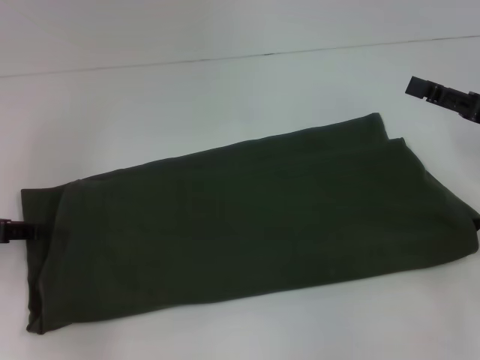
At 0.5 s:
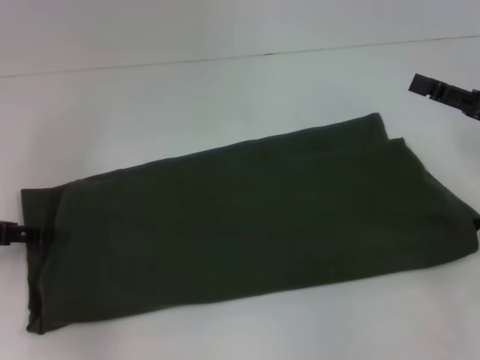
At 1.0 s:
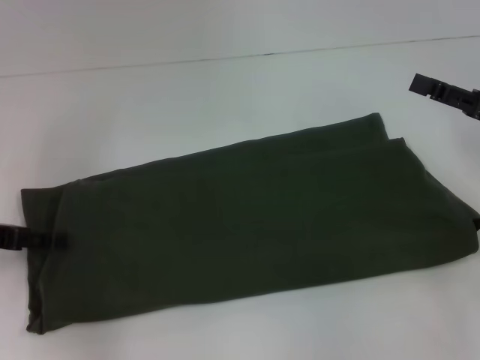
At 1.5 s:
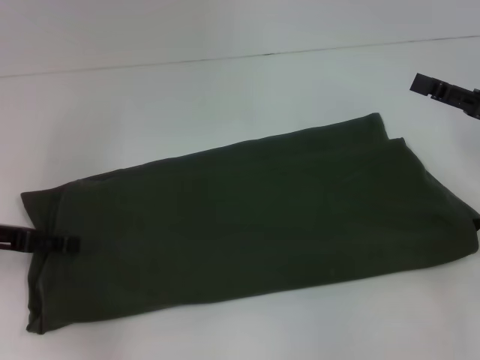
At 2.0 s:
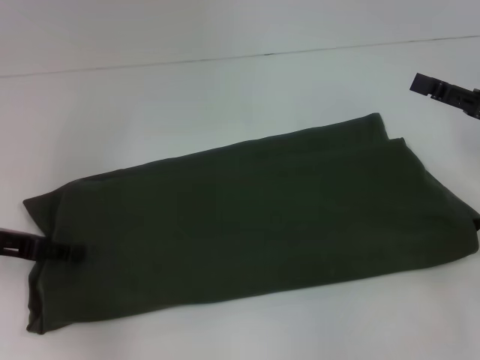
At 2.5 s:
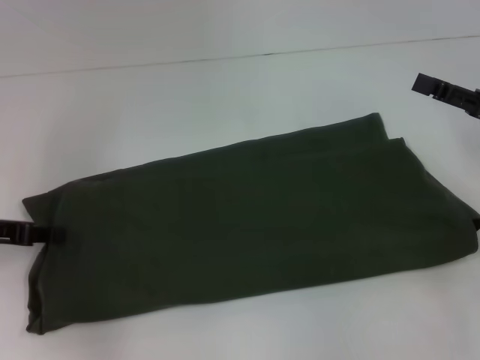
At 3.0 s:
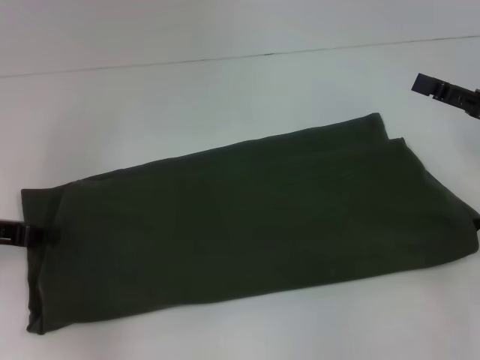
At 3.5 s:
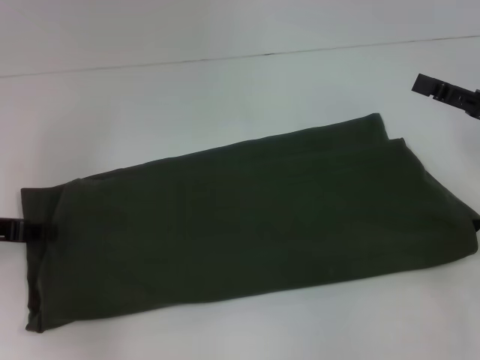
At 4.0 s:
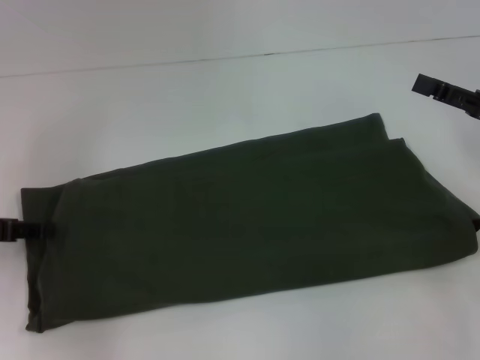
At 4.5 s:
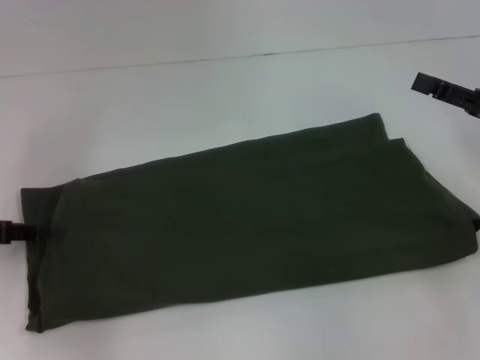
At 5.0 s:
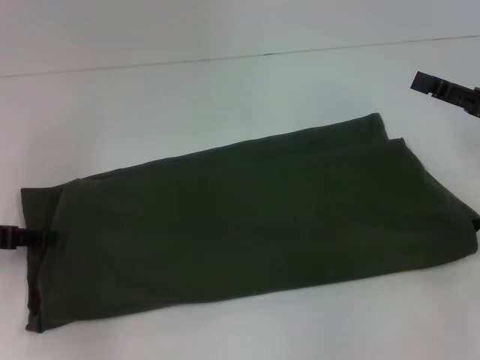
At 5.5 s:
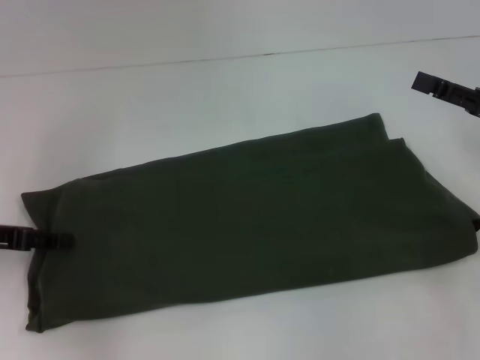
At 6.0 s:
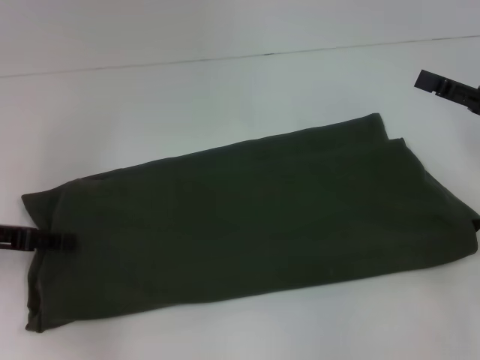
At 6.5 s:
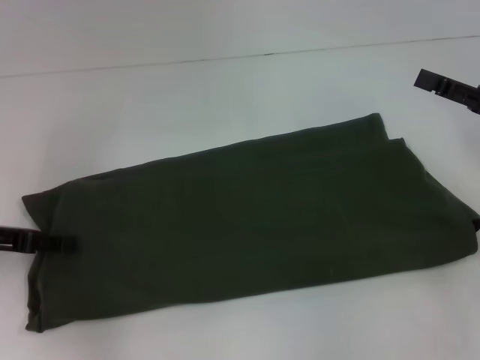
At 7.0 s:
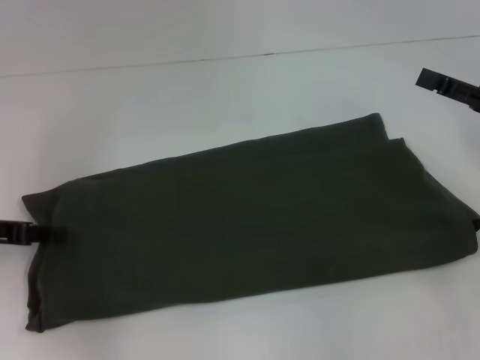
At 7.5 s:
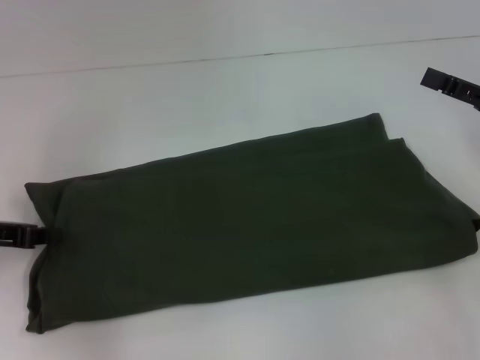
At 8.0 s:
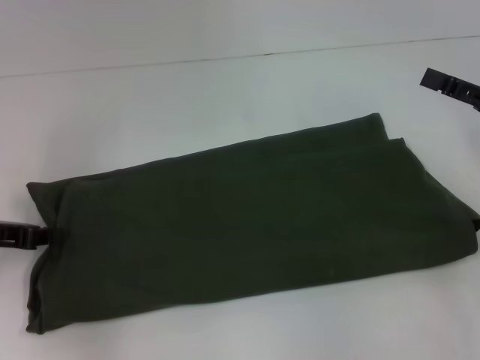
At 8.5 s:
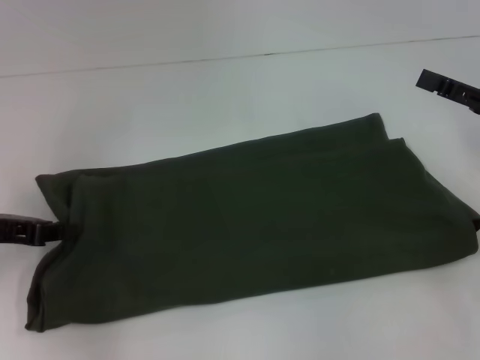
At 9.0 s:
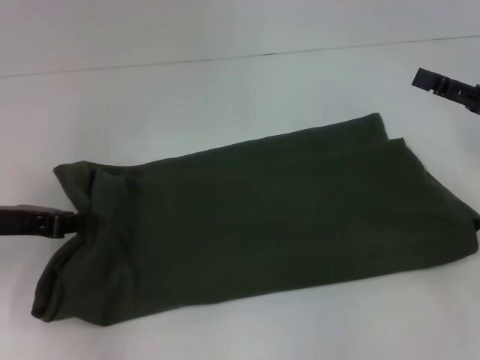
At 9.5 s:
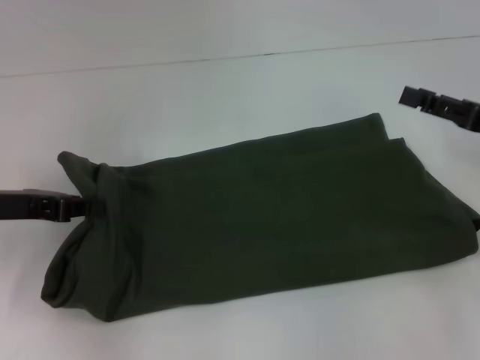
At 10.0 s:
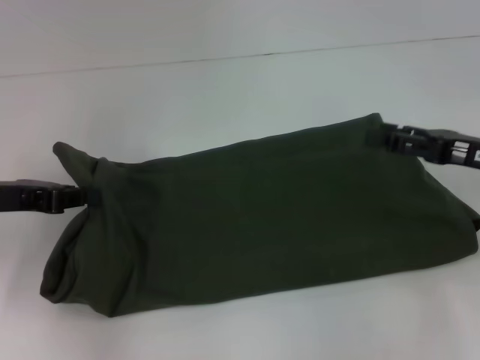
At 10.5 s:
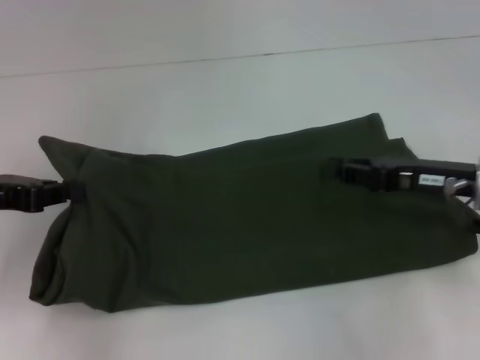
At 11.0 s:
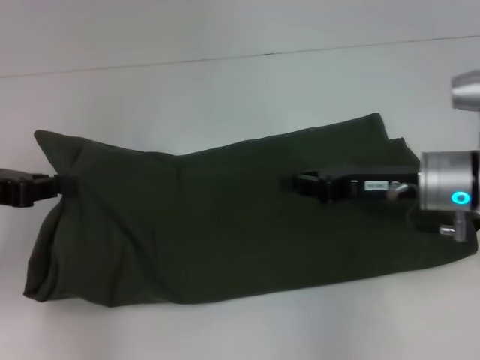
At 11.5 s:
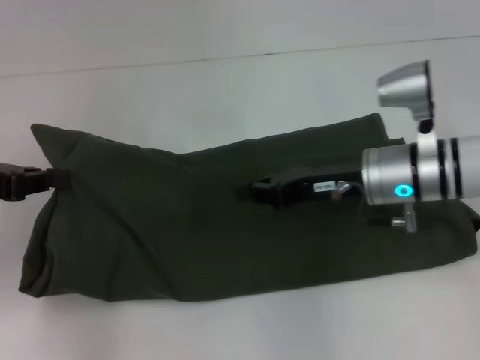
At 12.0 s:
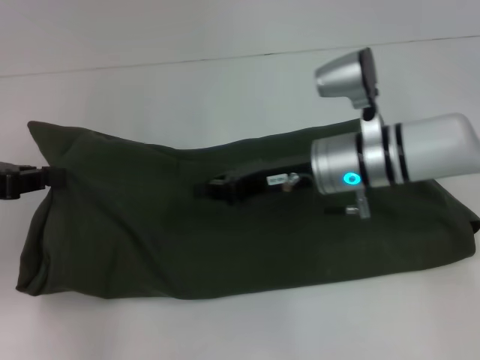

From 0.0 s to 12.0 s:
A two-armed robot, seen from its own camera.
From 0.0 s to 2.0 s: The left gripper opens.
From 2.0 s to 4.0 s: The left gripper closes its fingers.
From 4.0 s to 6.0 s: The grippers stay close to where they were, moving slightly.
From 6.0 s to 8.0 s: The left gripper closes.
From 8.0 s to 10.0 s: There are only small adjustments of the grippers.
From 10.0 s to 12.0 s: The right gripper goes about 20 cm to the left, and closes up.

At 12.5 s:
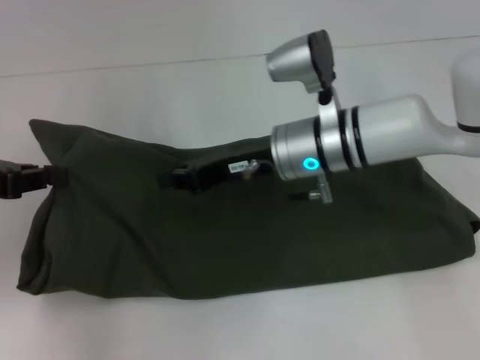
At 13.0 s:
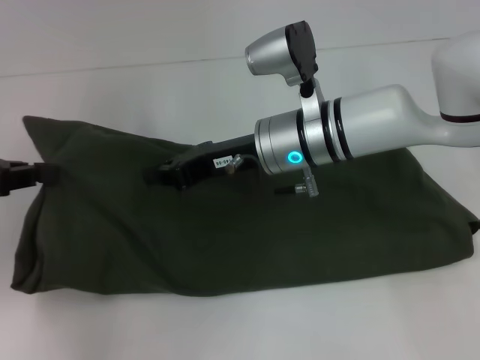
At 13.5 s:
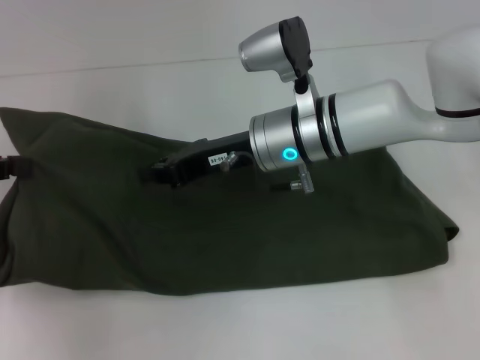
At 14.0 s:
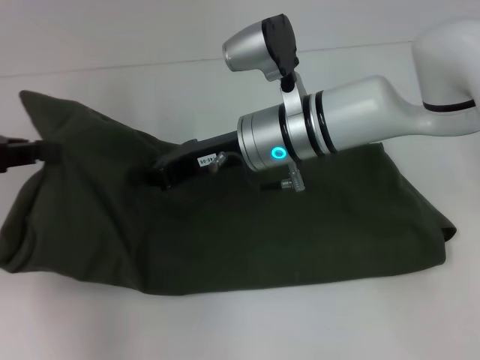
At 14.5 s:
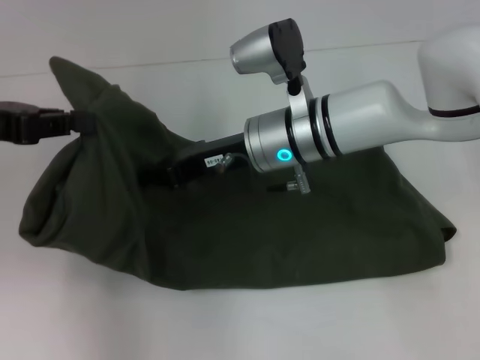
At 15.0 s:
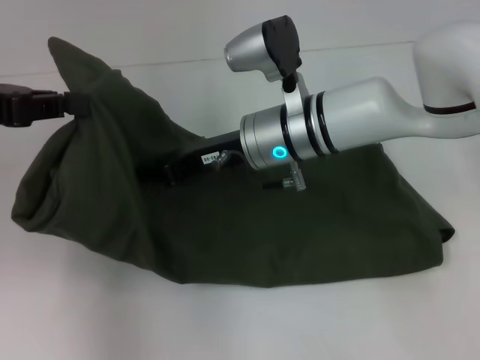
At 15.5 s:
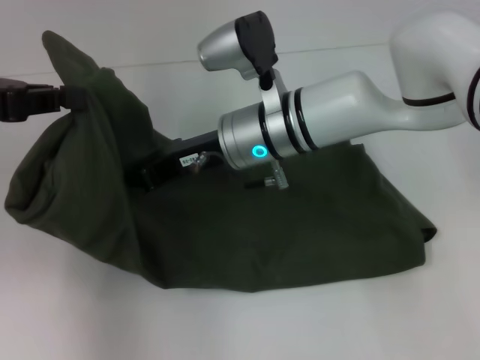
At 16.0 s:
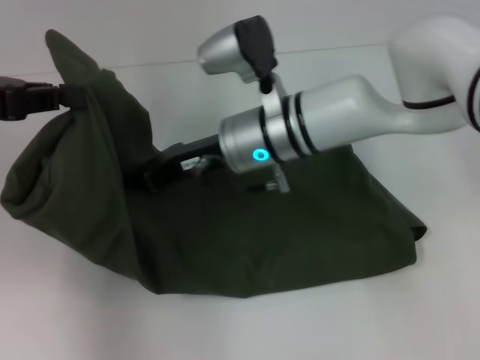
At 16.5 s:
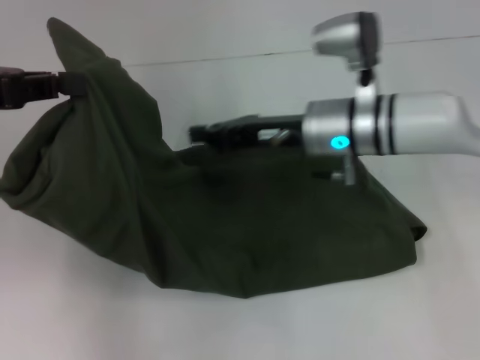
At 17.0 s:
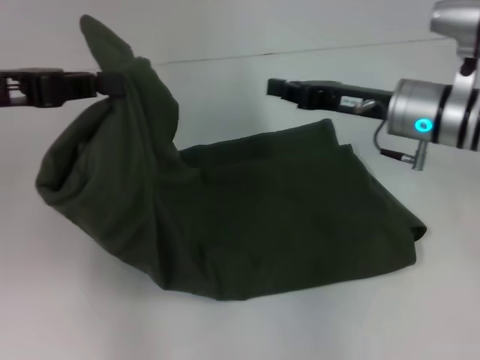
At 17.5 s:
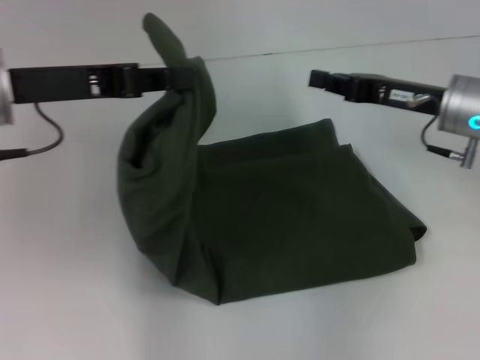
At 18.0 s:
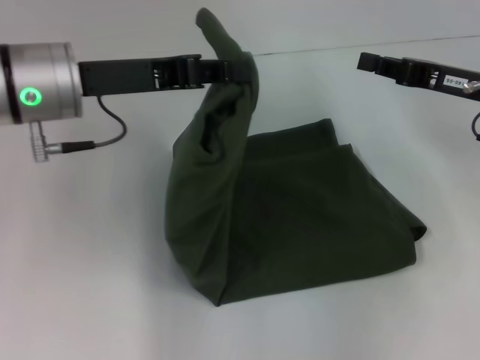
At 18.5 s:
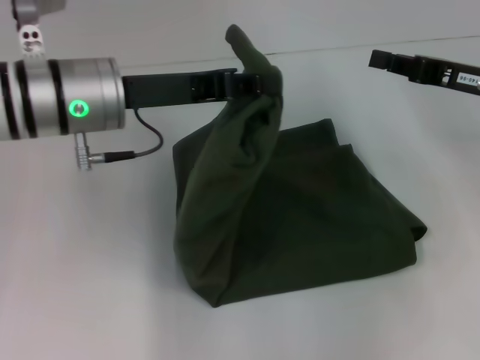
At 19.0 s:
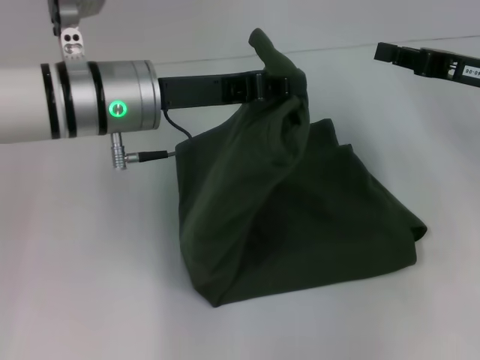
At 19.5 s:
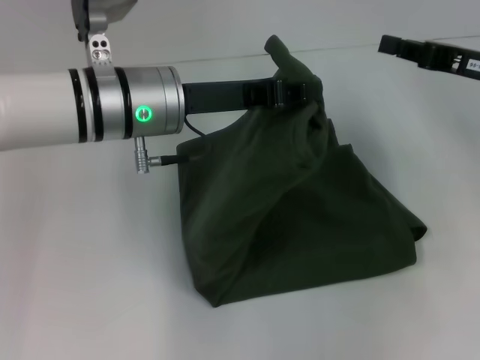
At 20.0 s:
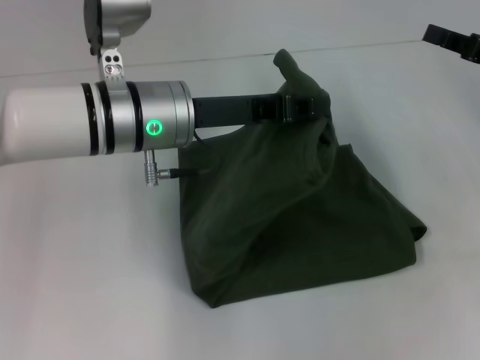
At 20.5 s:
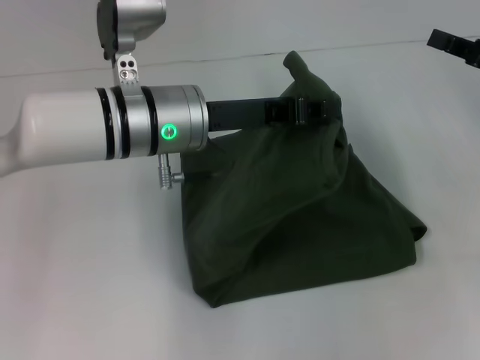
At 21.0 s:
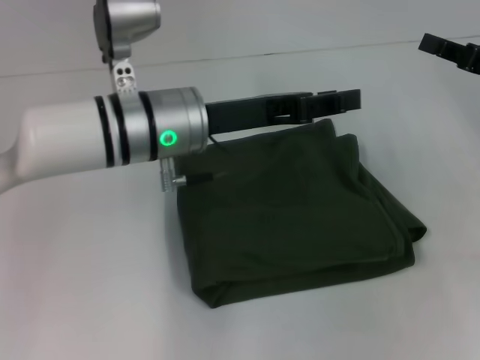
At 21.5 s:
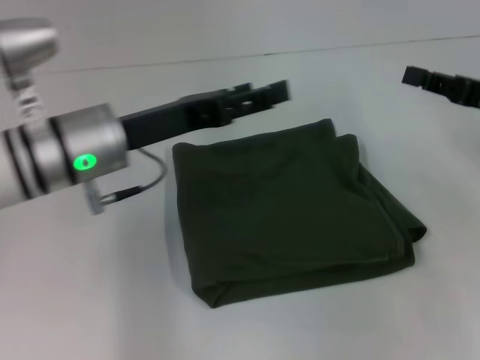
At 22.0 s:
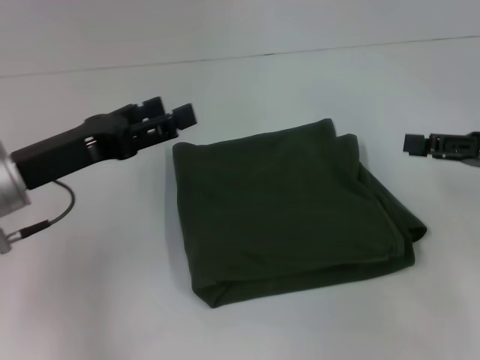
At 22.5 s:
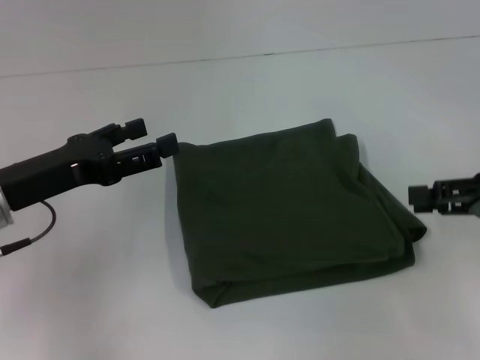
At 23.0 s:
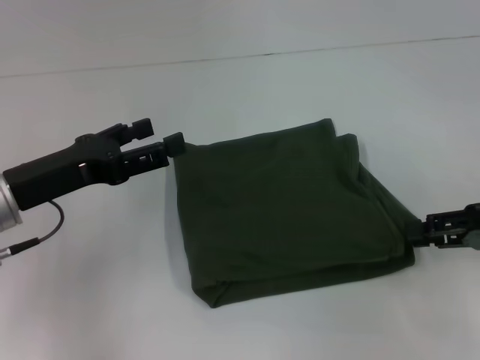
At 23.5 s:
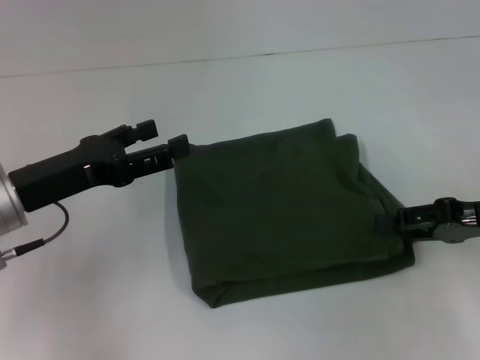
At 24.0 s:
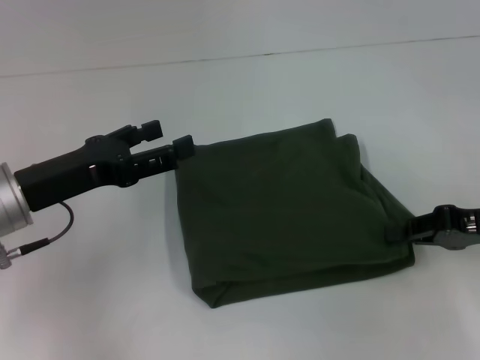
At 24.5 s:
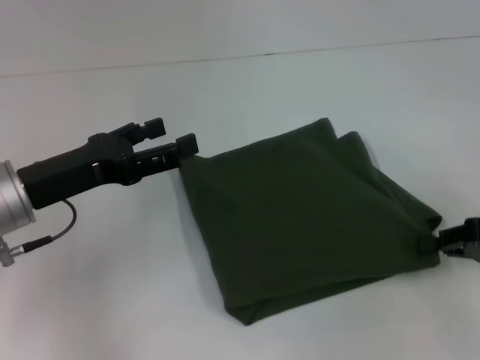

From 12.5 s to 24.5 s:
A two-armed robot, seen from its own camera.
Step, from 12.5 s to 20.5 s: Fold the clothes with your left hand.
From 12.5 s to 14.5 s: The left gripper ends up roughly 5 cm from where it was.
From 14.5 s to 16.5 s: The right gripper goes about 5 cm to the right.
From 16.5 s to 18.5 s: The two grippers go some 15 cm to the right.
From 18.5 s to 20.5 s: The left gripper is displaced to the right by about 5 cm.
From 20.5 s to 22.5 s: The right gripper moves backward, roughly 5 cm, and opens; the left gripper heads to the left, covering some 15 cm, and opens its fingers.
From 22.5 s to 24.5 s: The right gripper closes up.

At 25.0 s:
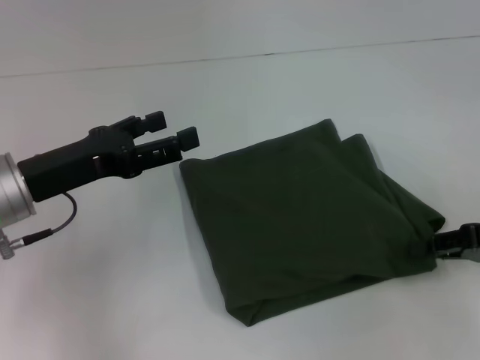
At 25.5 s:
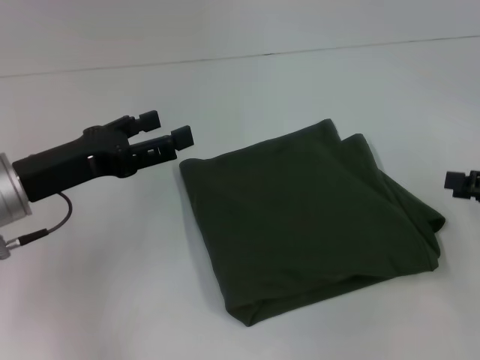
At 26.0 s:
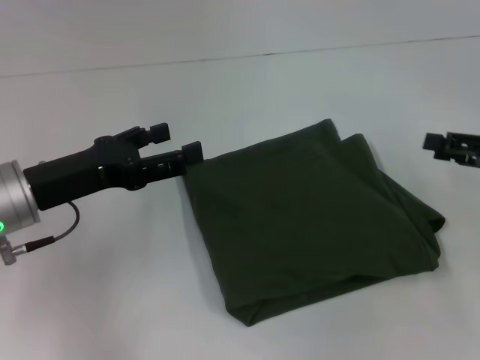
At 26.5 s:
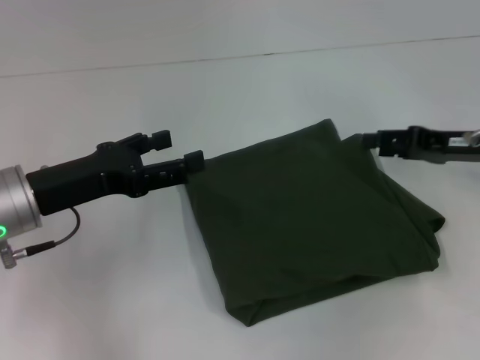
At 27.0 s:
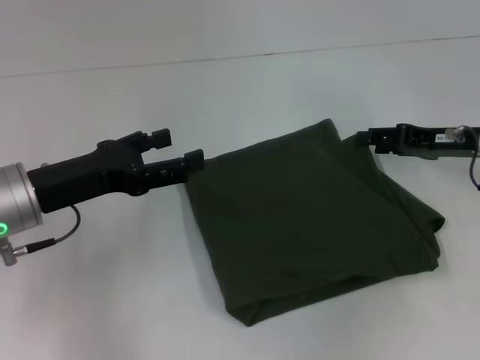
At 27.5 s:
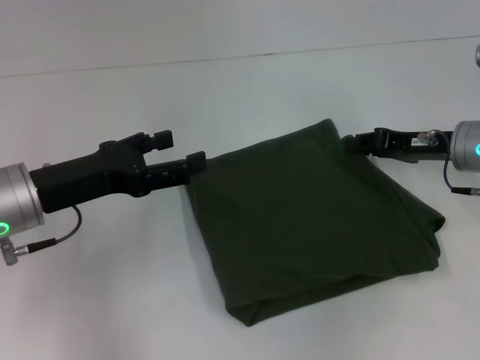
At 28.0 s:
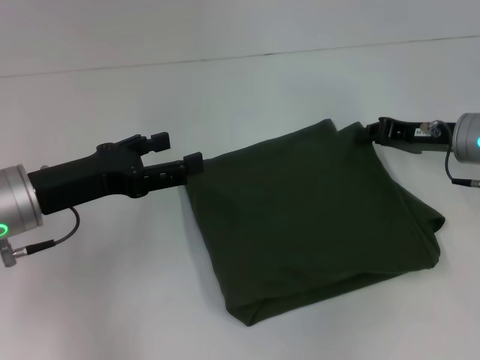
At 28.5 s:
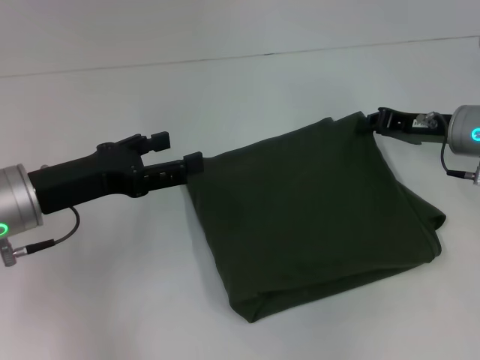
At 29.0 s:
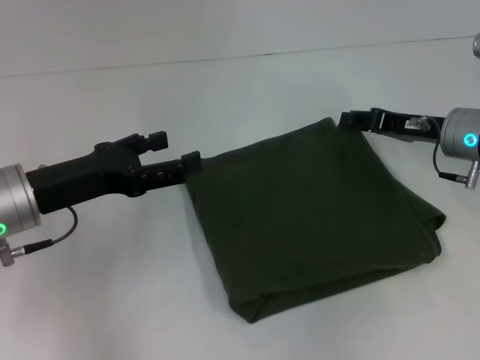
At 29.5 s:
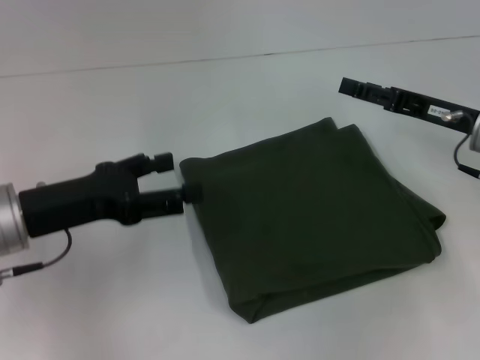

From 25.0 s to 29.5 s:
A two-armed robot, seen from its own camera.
From 25.0 s to 27.0 s: The right gripper shifts some 10 cm forward, and opens up.
From 27.0 s to 29.5 s: The right gripper closes, then reopens.
